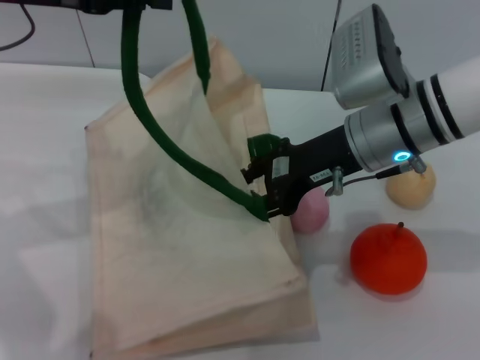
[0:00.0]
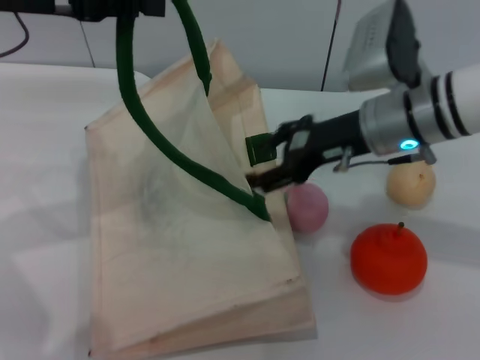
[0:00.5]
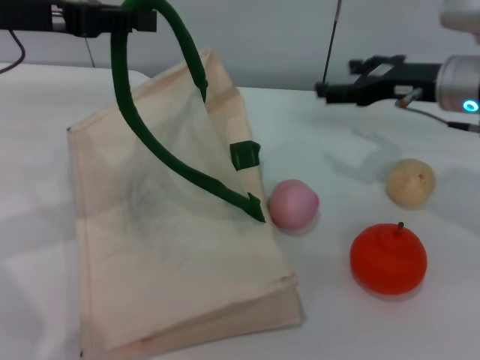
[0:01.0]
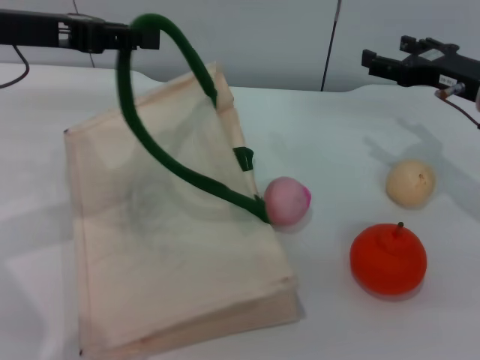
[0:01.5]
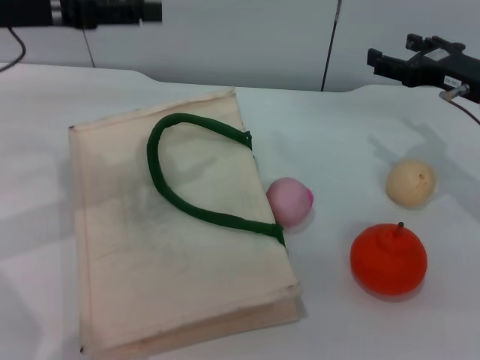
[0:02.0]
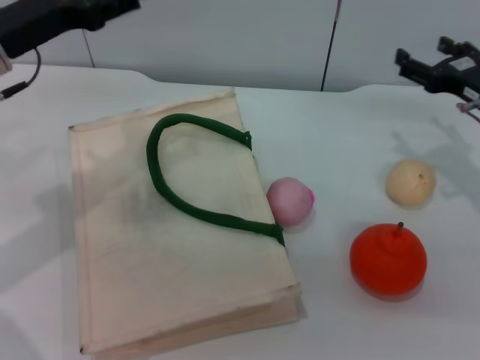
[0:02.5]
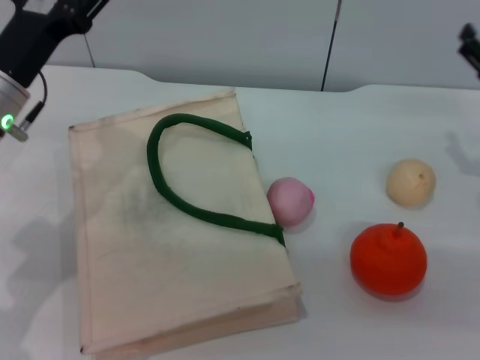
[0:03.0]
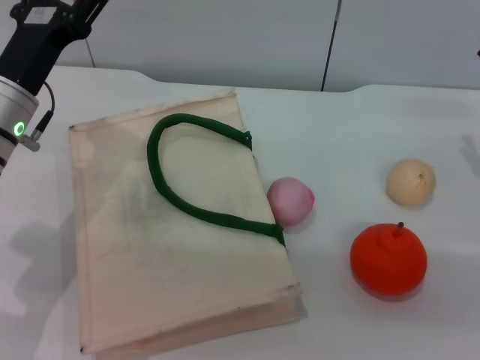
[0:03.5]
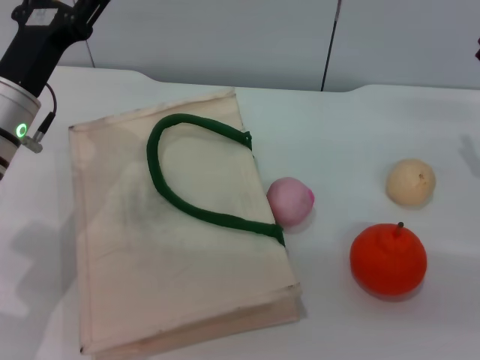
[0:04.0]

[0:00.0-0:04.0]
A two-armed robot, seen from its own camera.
Task of the whole recording: pick up the bread from the table and place it in the white handbag.
Step, 0:01.0 to 0:02.0: Lower the woven bag with the left gripper to close it.
0:00.0 to 0:02.0: The left gripper opens up; the right gripper shifts roughly 15 cm to the right, and opens.
0:02.0 to 0:04.0: The left gripper moves downward, about 10 cm, and opens up. The right gripper travels backward by some 5 cm.
